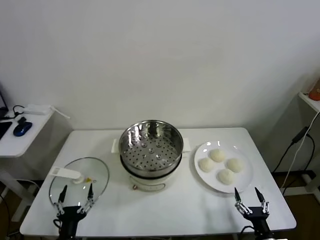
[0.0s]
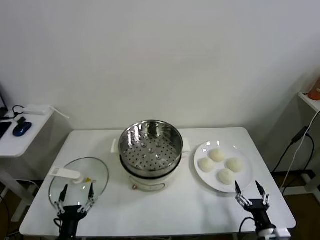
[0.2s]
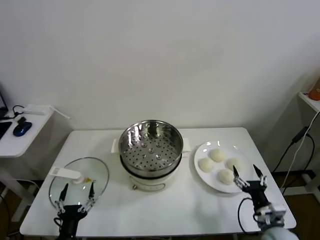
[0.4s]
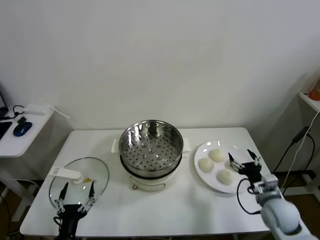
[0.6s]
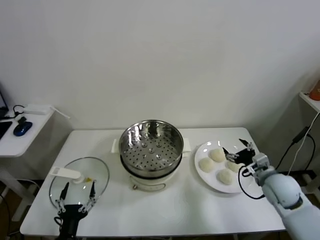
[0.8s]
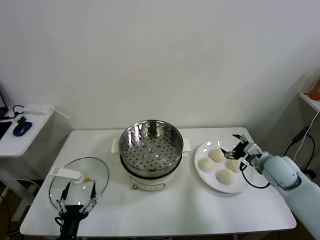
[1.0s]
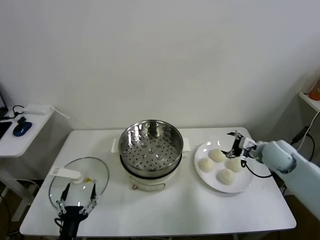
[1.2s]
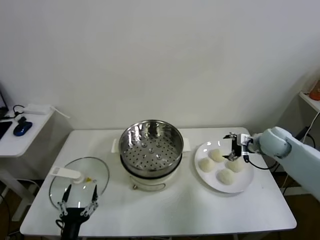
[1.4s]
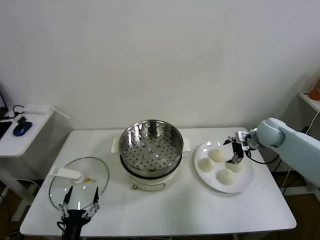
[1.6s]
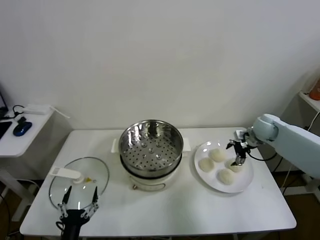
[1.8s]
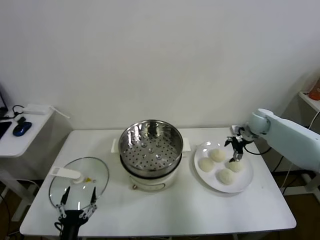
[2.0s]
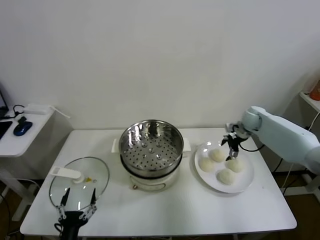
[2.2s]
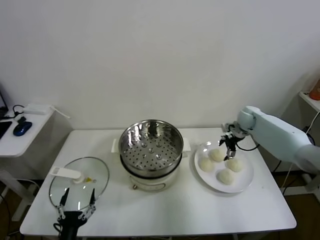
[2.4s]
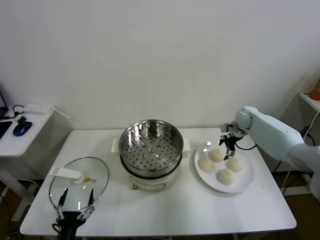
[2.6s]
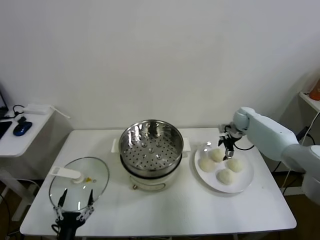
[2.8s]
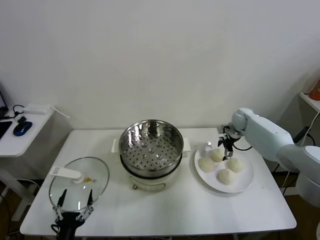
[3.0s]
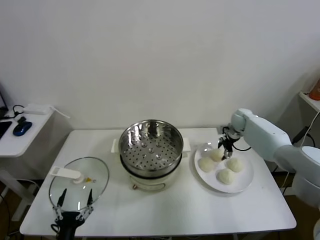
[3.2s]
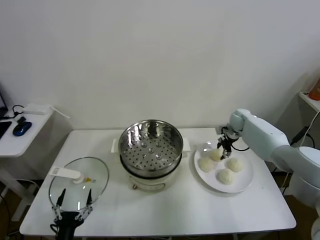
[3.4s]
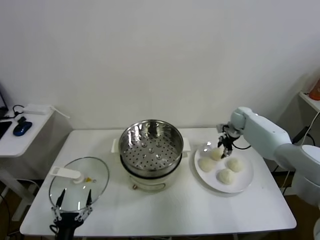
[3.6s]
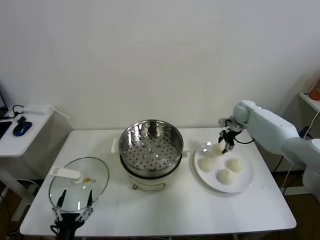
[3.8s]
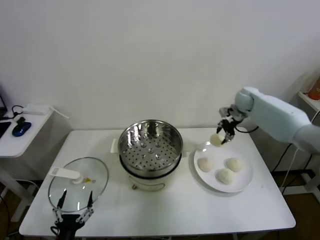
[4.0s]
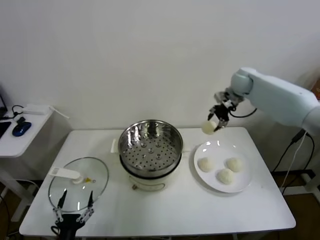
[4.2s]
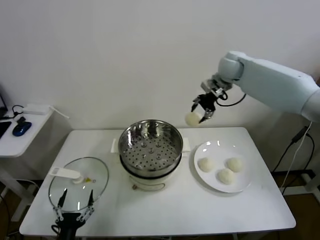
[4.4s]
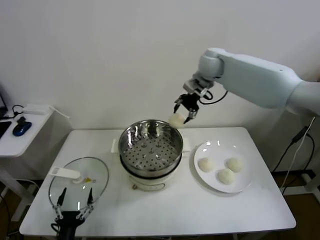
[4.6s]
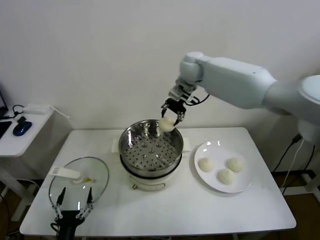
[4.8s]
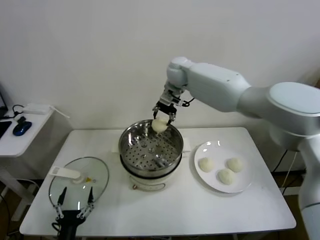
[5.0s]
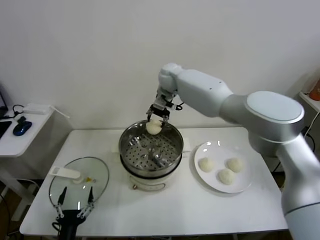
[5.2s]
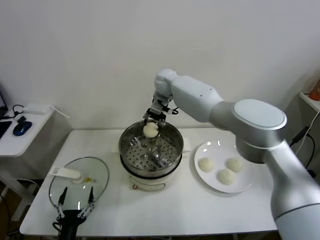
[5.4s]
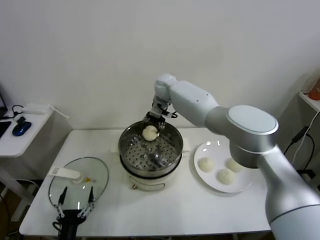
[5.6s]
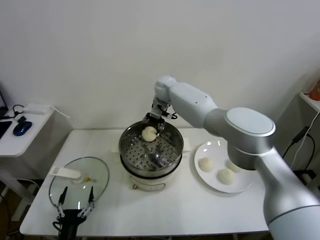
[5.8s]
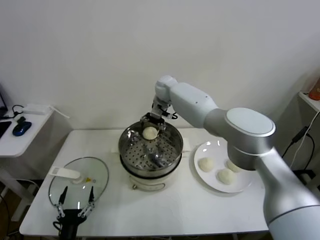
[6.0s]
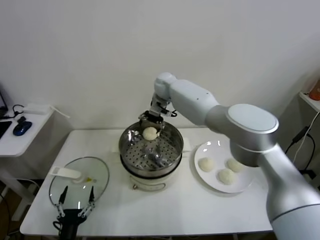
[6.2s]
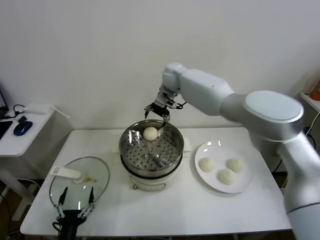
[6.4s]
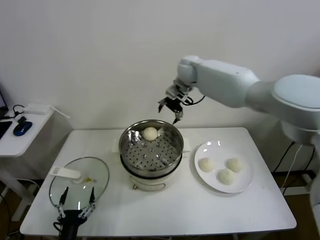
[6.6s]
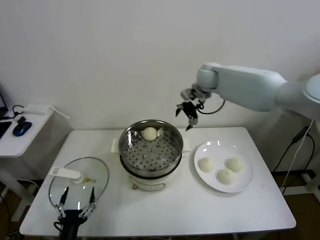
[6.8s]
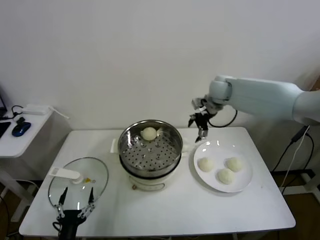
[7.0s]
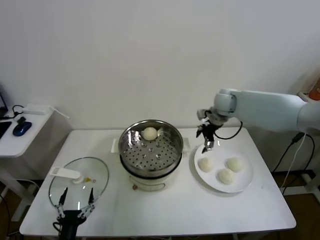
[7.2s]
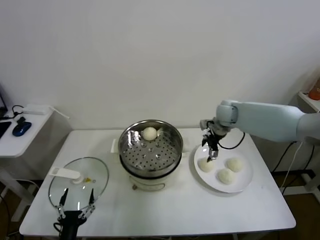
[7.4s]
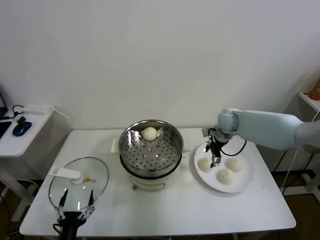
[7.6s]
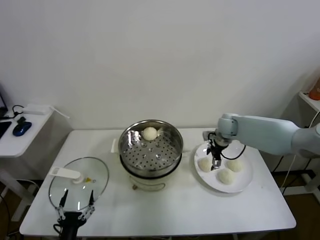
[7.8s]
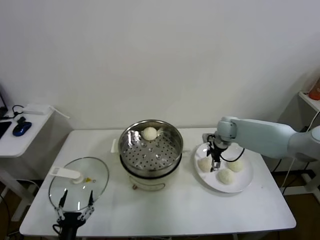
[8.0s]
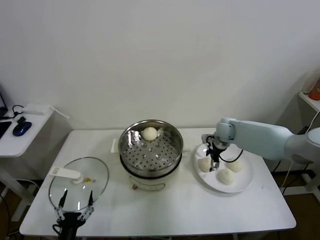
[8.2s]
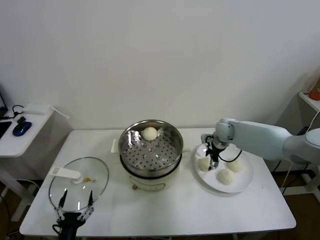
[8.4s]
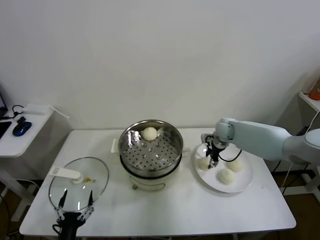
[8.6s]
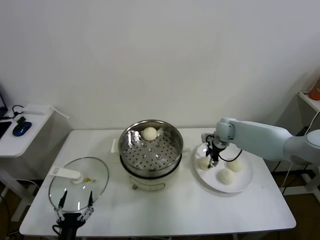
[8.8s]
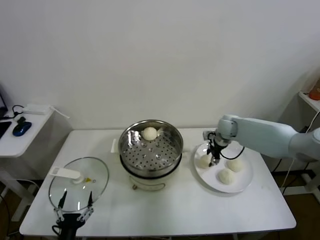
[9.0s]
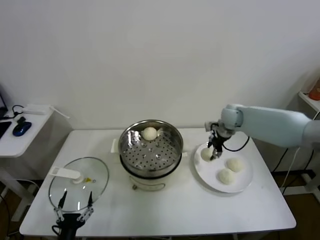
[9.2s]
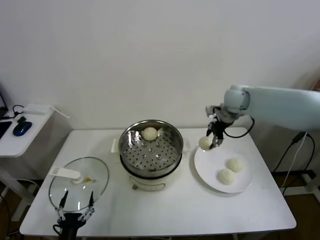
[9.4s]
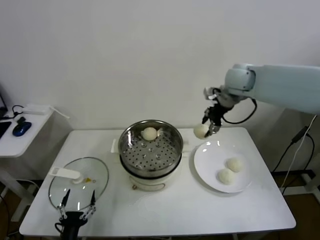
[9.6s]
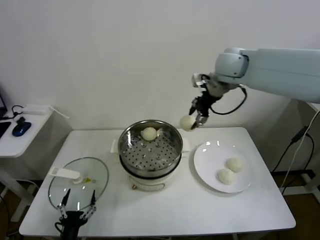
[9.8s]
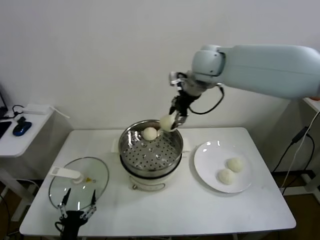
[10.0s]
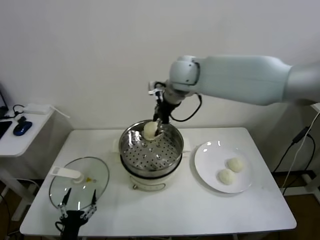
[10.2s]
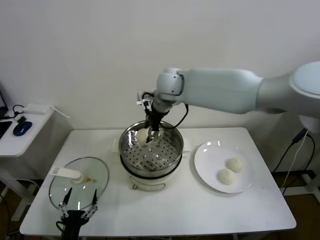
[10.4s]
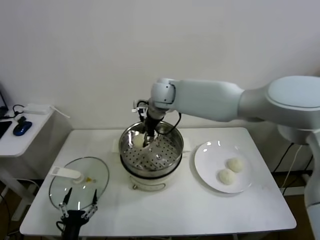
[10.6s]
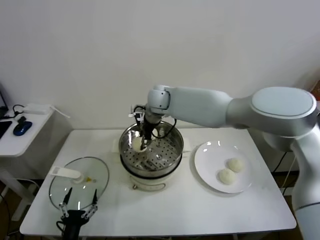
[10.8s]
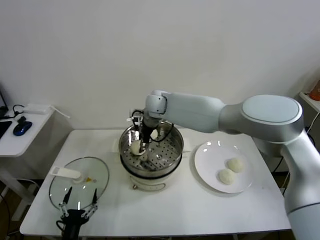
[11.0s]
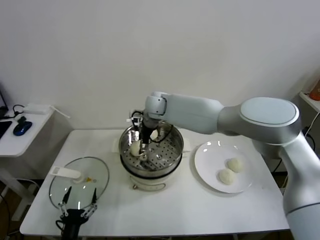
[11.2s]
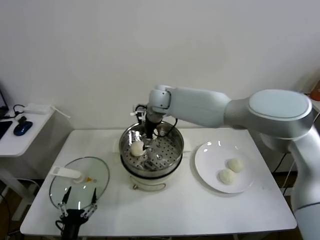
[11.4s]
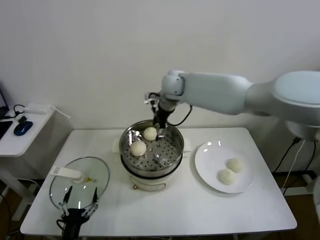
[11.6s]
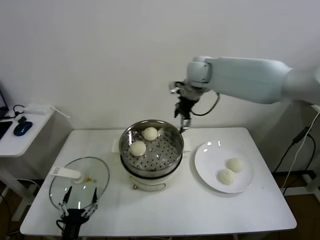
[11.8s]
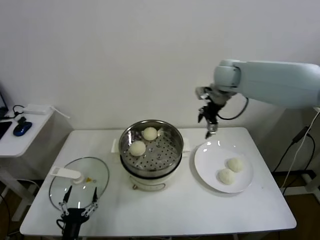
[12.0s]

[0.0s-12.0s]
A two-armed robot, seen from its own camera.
Task of the whole recording: take steamed baozi put them in steamer.
Step, 0.0s to 3.4s: Grasp the baozi in the plate with right gripper.
Step, 3.6s to 6.2s: Place the baozi on the steamer with right gripper.
Step, 6.4s to 8.6s: Grasp the baozi in the plate with right gripper.
Step, 8.8s to 11.2s: Place the baozi on the steamer with right gripper.
1.6s to 3.0s: The right gripper moves forward, some 10 cm.
3.0s to 4.4s: The right gripper heads upward and to the left, covering some 30 cm, and closes its fingers.
4.4s to 6.0s: The right gripper shifts some 20 cm to the left and downward, and opens.
6.0s to 7.6s: The right gripper shifts roughly 25 cm to the right and downward.
7.6s to 9.0s: The right gripper closes.
9.0s to 10.4s: The right gripper is displaced to the left and upward by approximately 30 cm.
10.4s to 12.0s: The right gripper is displaced to the right by about 20 cm, and opens up.

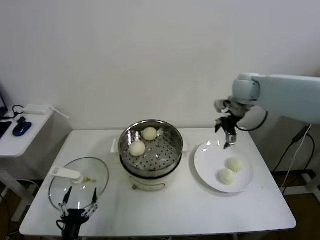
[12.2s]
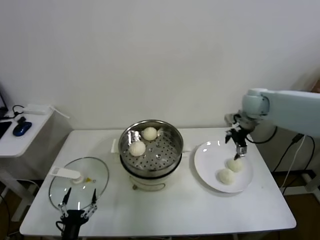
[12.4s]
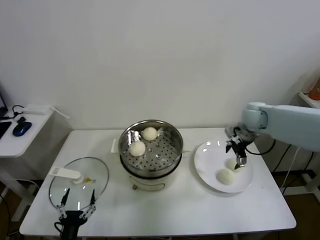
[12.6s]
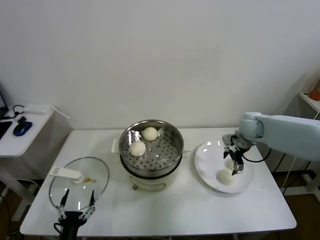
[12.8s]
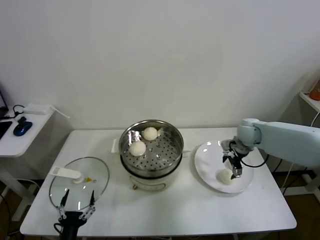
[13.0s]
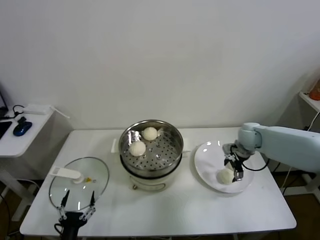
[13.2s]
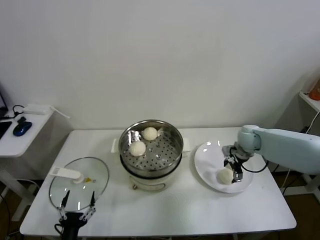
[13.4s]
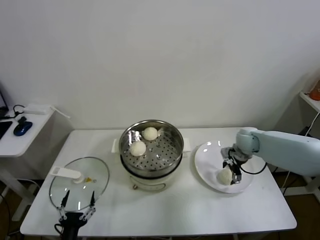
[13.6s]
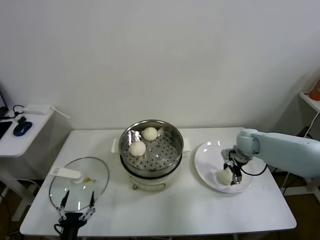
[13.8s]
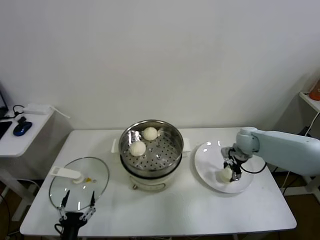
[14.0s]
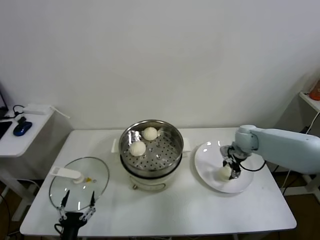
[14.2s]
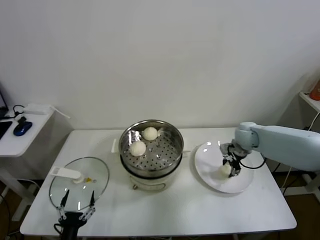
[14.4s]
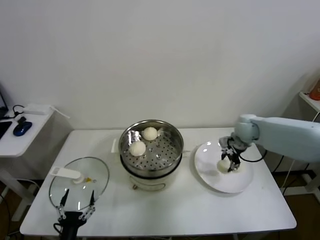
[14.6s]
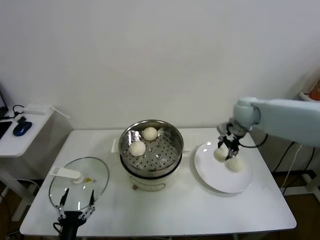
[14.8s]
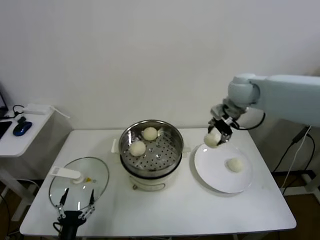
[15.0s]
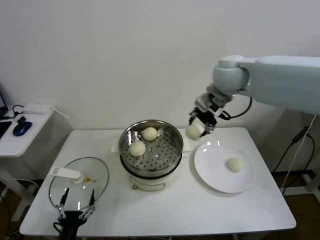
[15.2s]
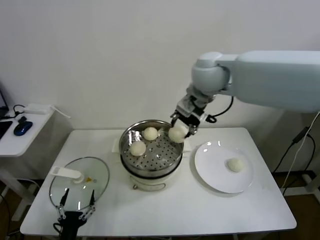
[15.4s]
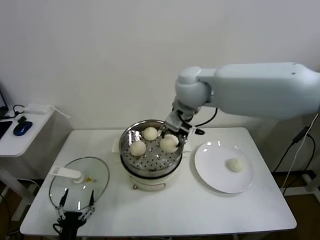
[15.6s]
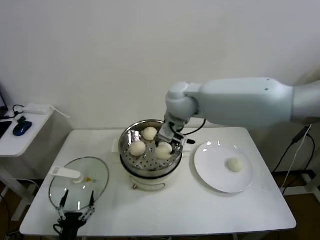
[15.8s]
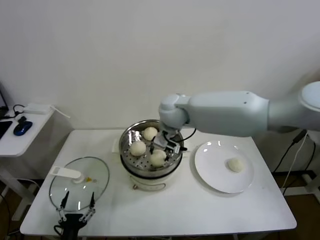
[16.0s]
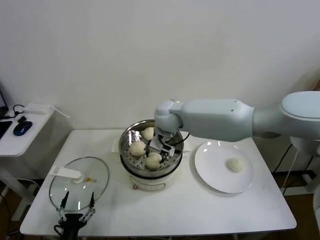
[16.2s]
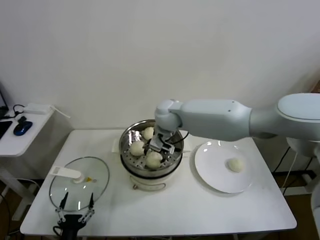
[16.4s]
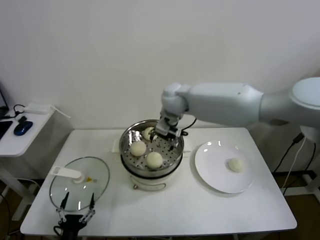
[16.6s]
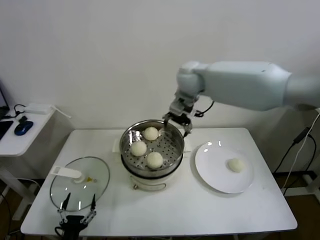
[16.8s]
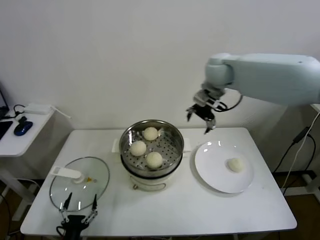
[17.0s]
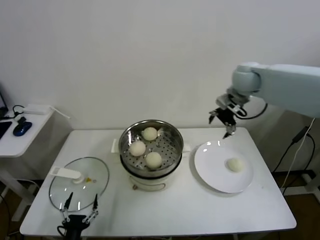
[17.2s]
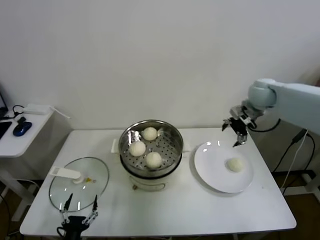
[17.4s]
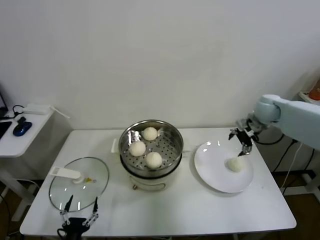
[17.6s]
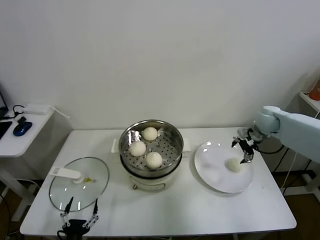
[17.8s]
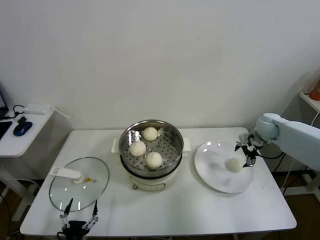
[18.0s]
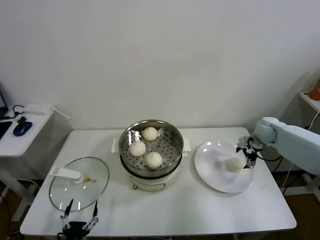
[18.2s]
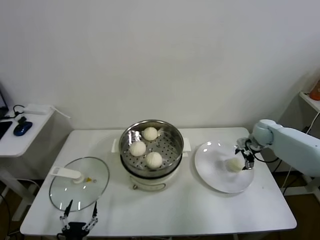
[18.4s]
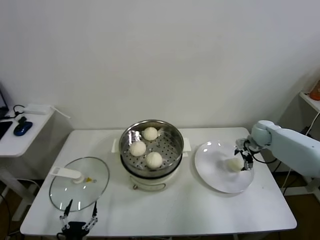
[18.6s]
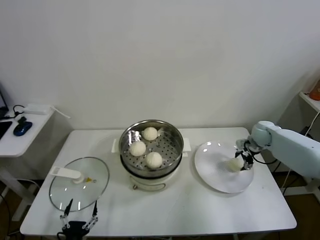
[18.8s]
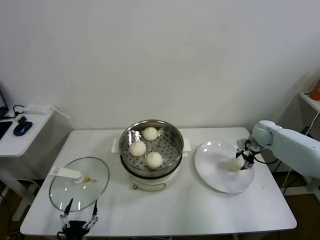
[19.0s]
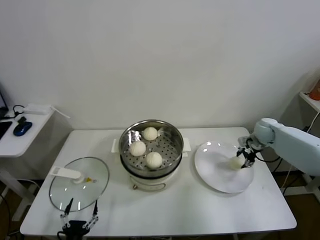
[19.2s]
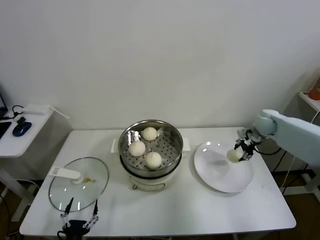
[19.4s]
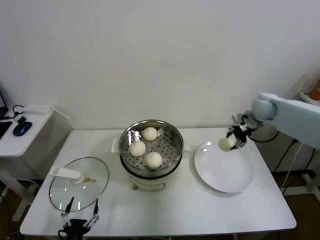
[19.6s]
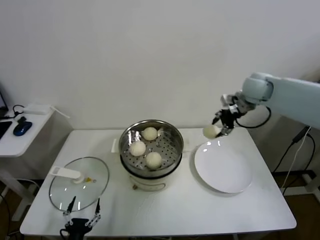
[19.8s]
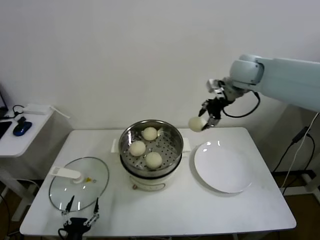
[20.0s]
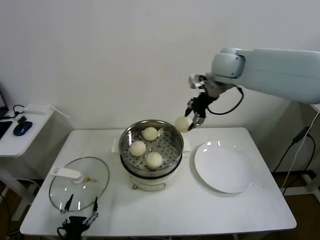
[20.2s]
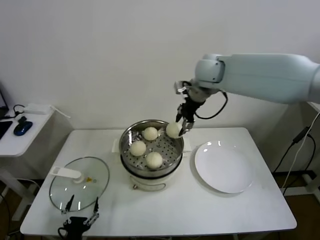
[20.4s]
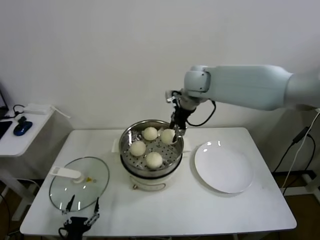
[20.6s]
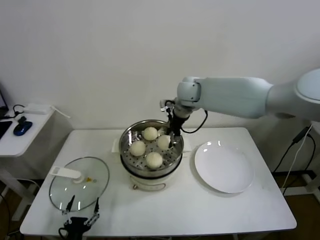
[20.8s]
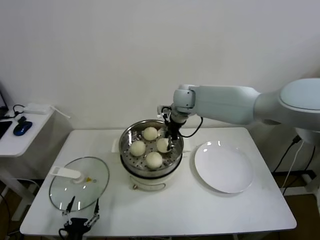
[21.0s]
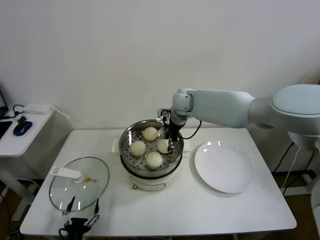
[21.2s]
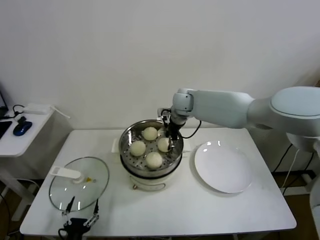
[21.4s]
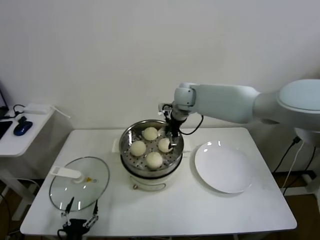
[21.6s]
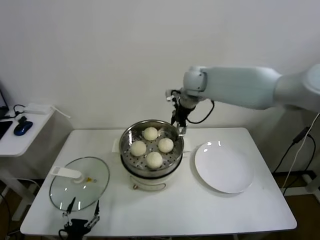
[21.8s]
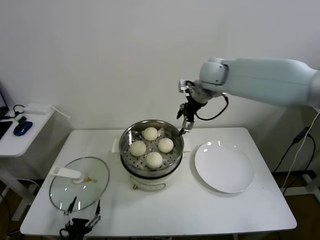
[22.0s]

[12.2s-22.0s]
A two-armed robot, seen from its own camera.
Task of the whole recording: take steamed baozi put them in steamer.
Step, 12.2s to 14.0s: Grasp the baozi in the plate with right gripper.
Step, 14.2s to 16.4s: Place the baozi on the steamer with right gripper.
Step, 16.6s to 19.0s: Grasp the baozi in the plate with right gripper.
Step, 19.2s to 21.4s: Place the baozi on the steamer with right gripper.
12.2s to 13.6s: The right gripper shifts roughly 20 cm downward.
13.6s to 15.0s: The right gripper shifts roughly 20 cm upward, and closes.
15.0s to 16.4s: The right gripper goes approximately 25 cm to the left and downward, and opens its fingers.
16.4s to 17.8s: The right gripper goes roughly 35 cm to the right, and opens its fingers.
17.8s to 19.2s: The right gripper moves downward, some 10 cm, and closes its fingers.
19.2s to 20.6s: The right gripper travels to the left and upward by roughly 35 cm.
20.6s to 22.0s: The right gripper reaches some 10 cm downward, then returns, and opens up.
